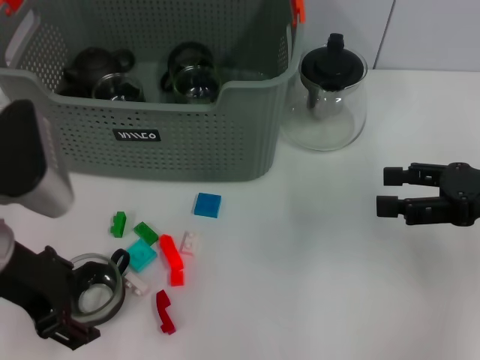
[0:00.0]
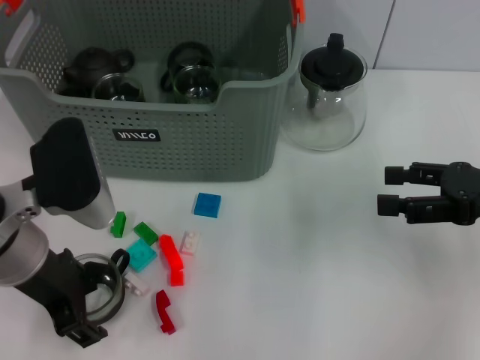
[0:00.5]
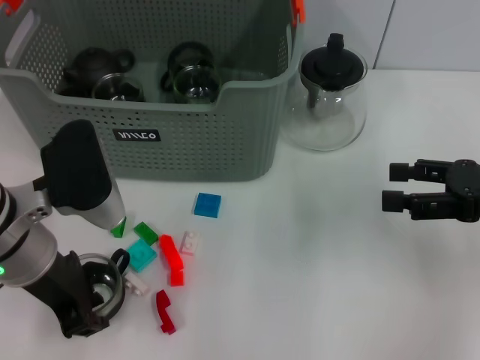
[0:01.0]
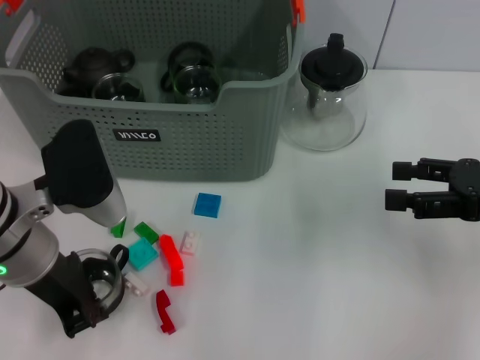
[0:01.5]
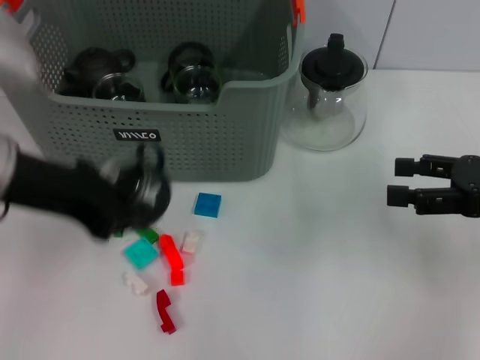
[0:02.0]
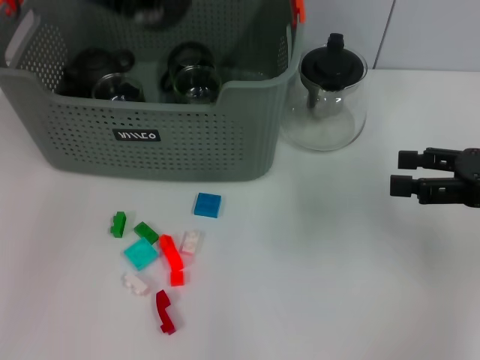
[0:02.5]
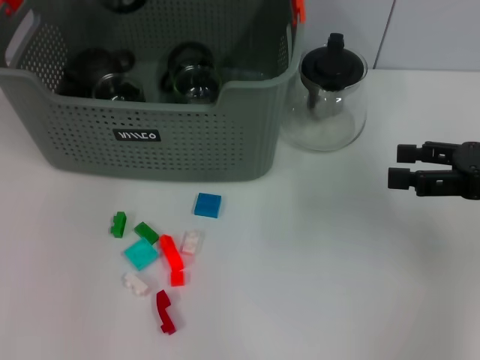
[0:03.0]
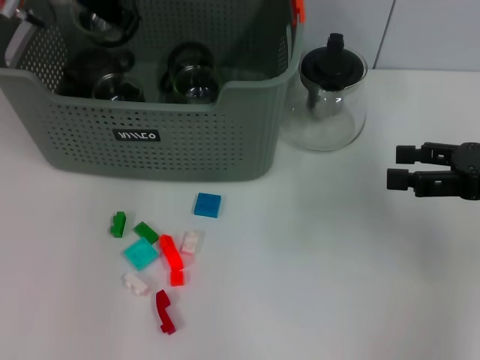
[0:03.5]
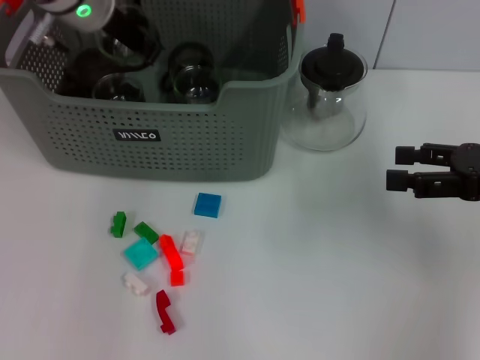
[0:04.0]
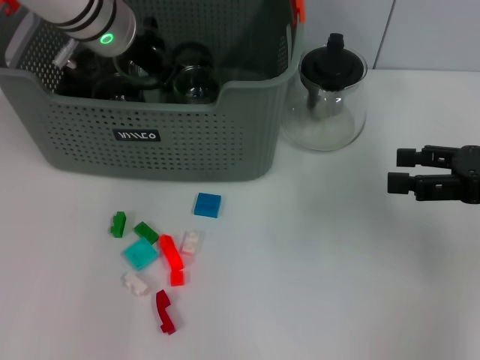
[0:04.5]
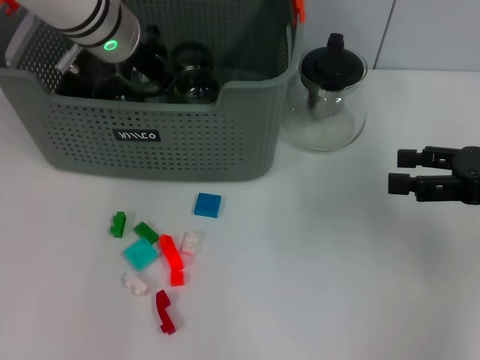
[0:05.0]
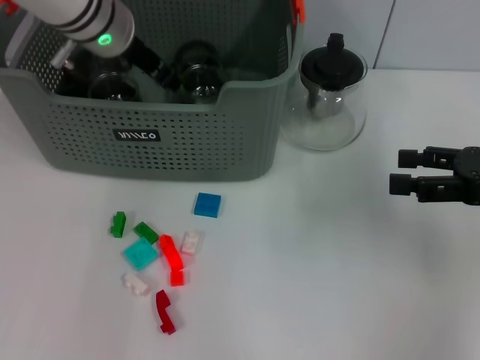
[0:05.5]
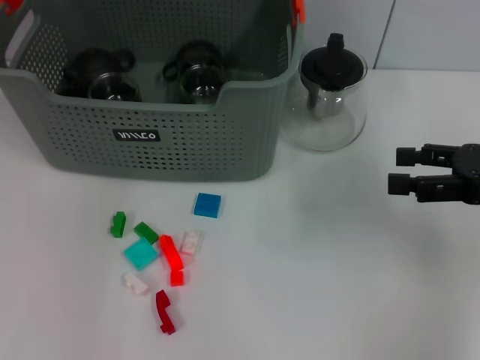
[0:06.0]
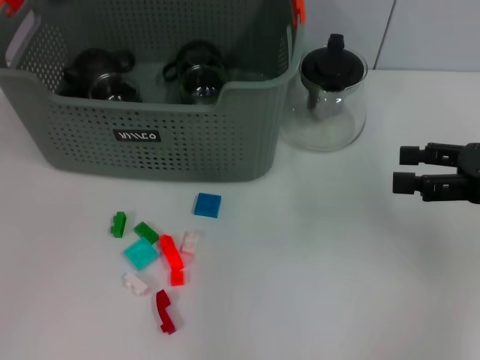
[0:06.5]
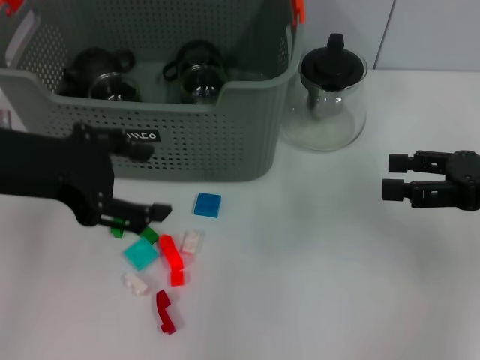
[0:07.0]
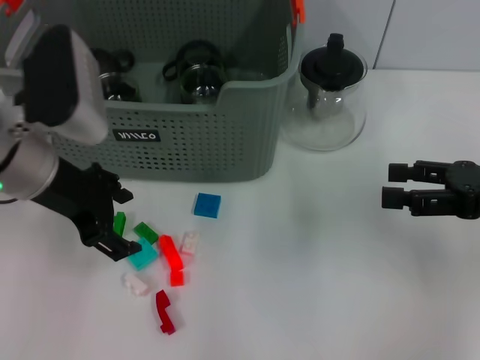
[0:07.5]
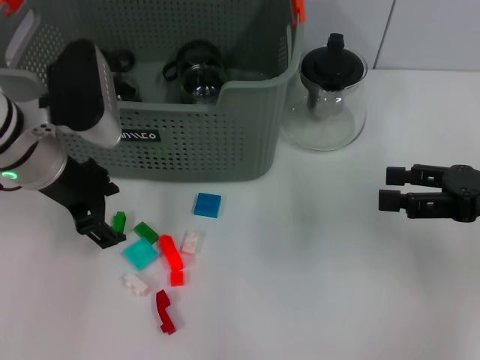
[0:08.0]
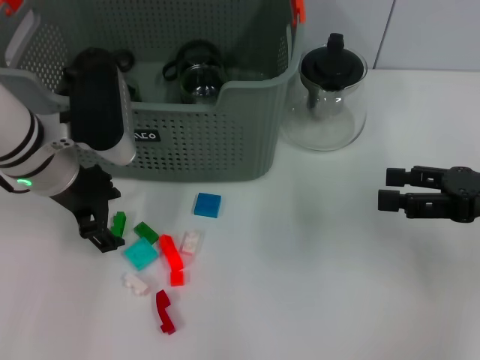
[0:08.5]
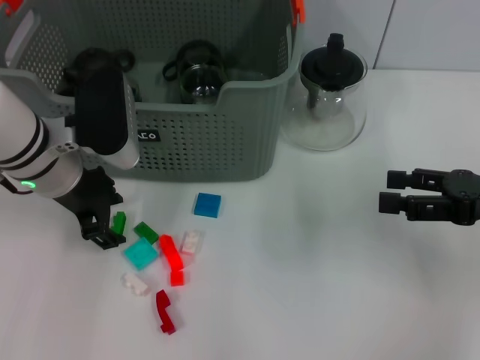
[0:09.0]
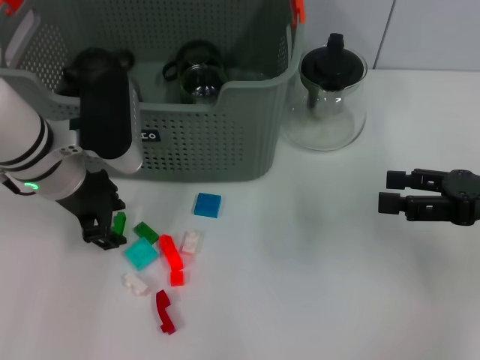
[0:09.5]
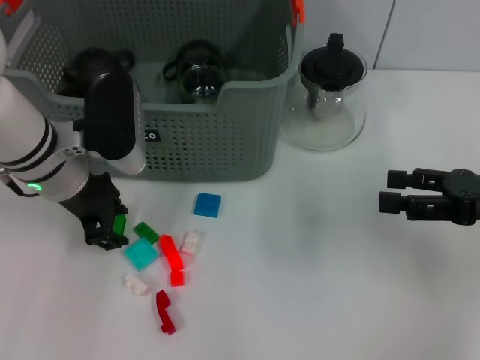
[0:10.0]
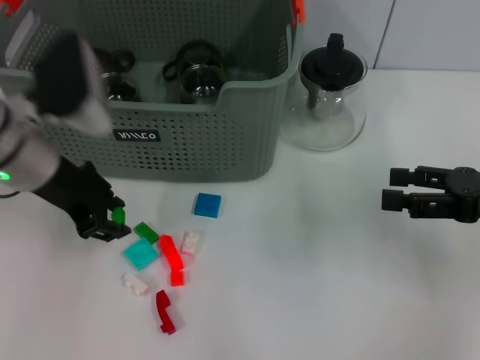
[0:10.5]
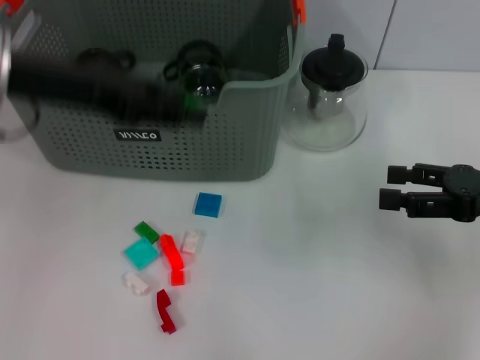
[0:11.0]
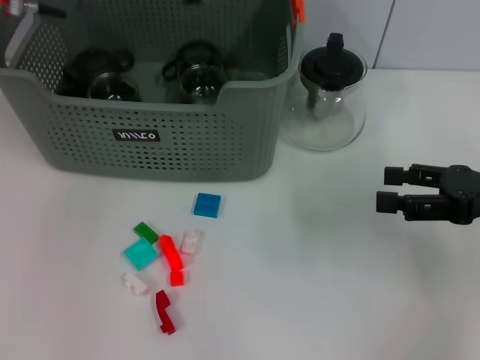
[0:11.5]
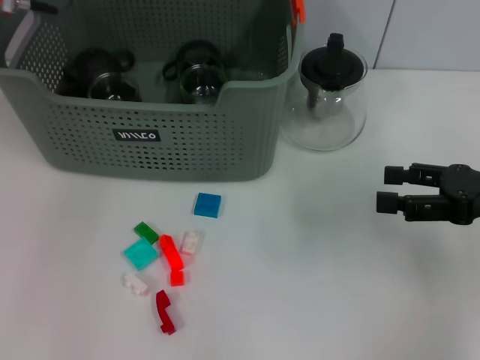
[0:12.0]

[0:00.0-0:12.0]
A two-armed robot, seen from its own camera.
Task of the whole recording: pick up the teacup on the table and place it into the storage bin, pick up the block on the table and place it into the storage bin.
Step, 1.5 to 6.0 s: Place the cup in the storage box with left gripper.
Step, 6.5 to 10.0 s: Grasp the green block with left gripper.
0.0 to 2.0 s: The left gripper is displaced upward by some 5 cm, and closes up.
2.0 to 4.0 s: The left gripper heads forward, covering roughly 20 cm.
4.0 to 6.0 s: The left gripper goes approximately 5 cm upward, and opens its fingers.
6.0 to 8.0 s: The left gripper travels downward and backward by some 15 cm.
8.0 to 10.0 s: There are only small adjustments of the grippers.
10.0 to 12.0 s: The left gripper heads upward and forward, covering roughly 15 cm.

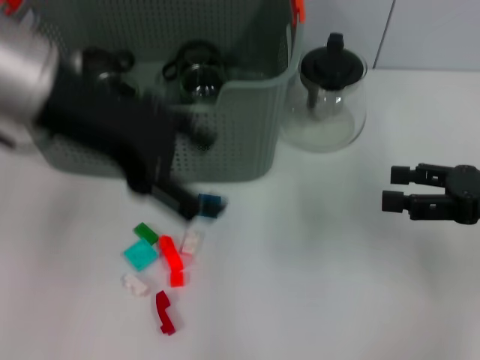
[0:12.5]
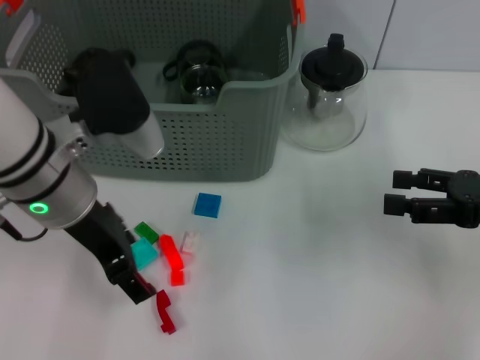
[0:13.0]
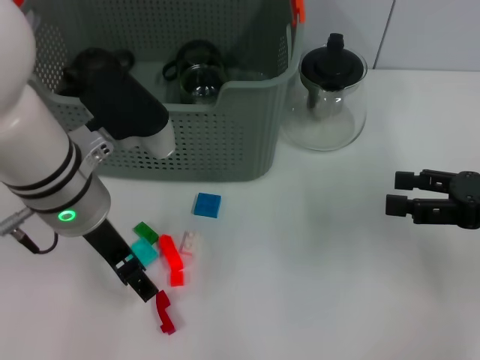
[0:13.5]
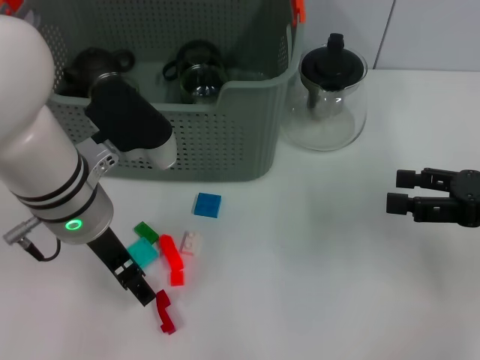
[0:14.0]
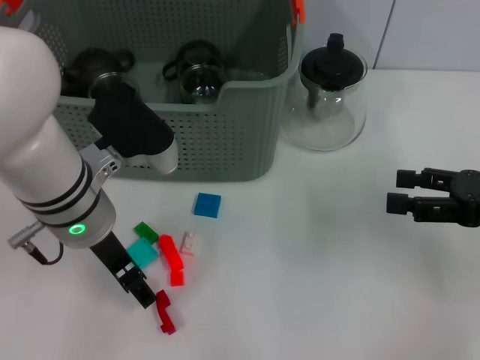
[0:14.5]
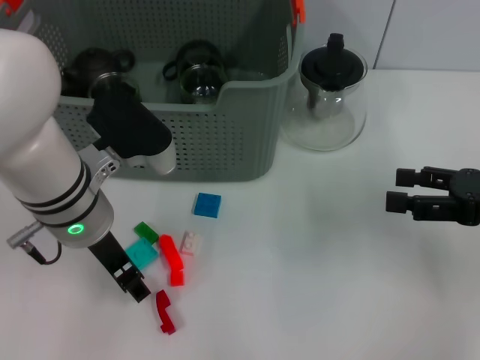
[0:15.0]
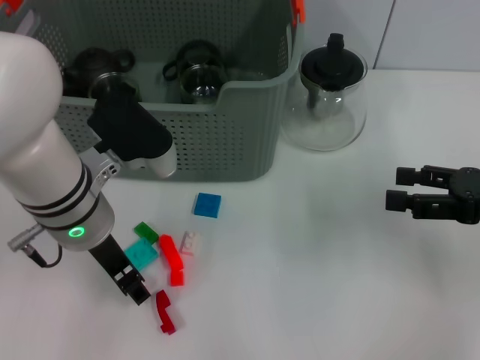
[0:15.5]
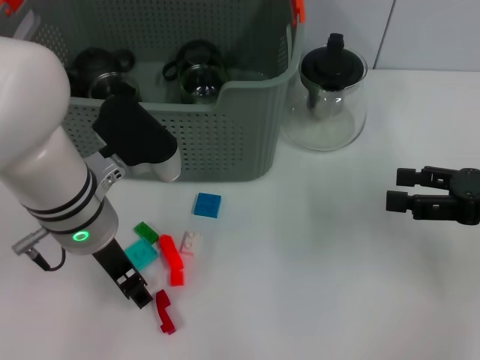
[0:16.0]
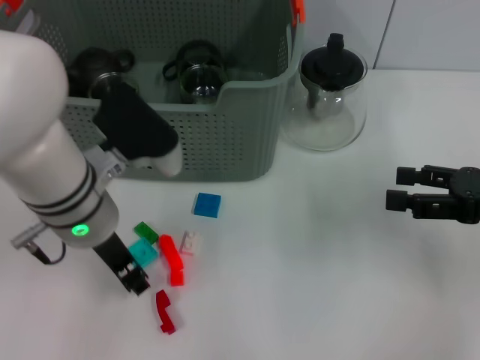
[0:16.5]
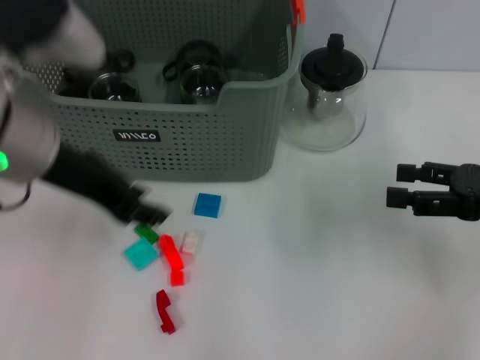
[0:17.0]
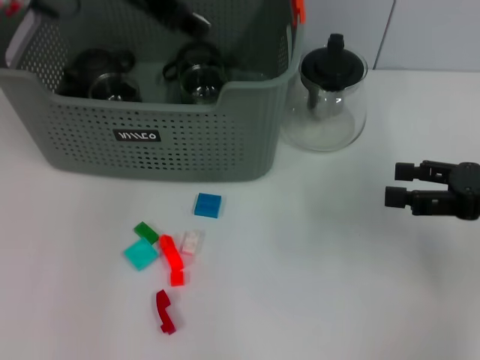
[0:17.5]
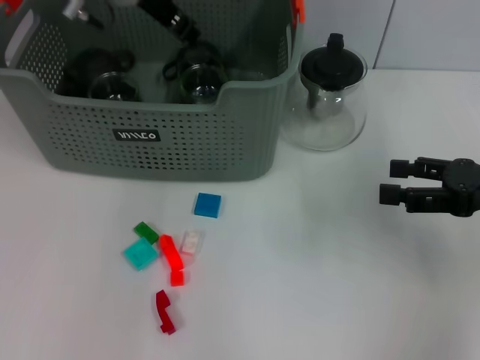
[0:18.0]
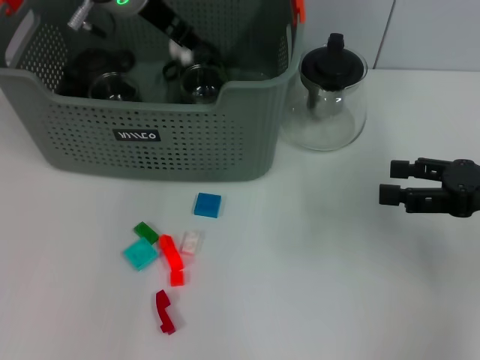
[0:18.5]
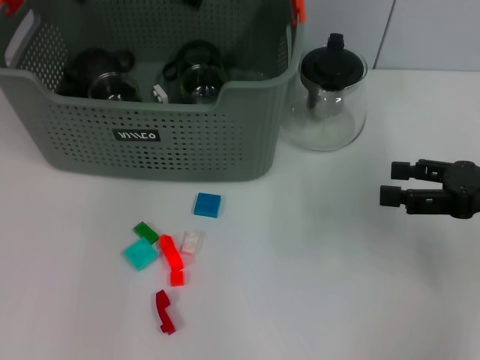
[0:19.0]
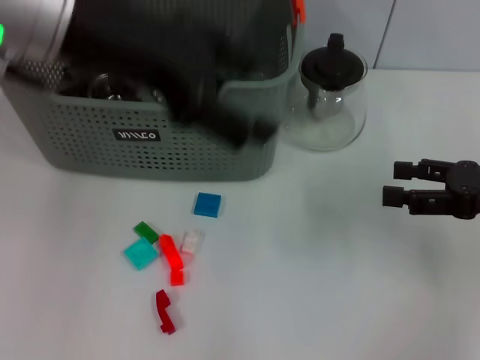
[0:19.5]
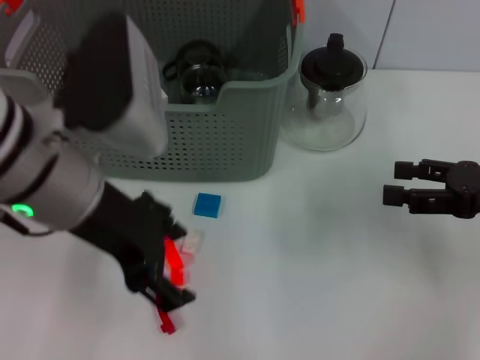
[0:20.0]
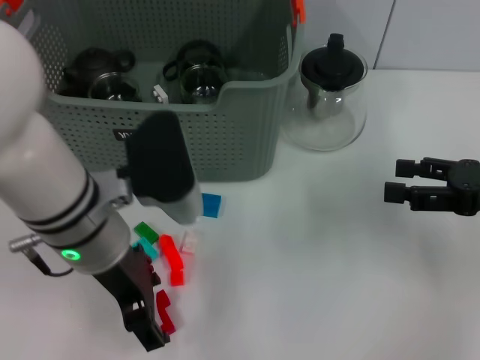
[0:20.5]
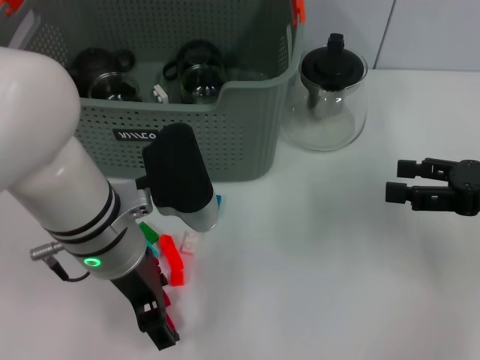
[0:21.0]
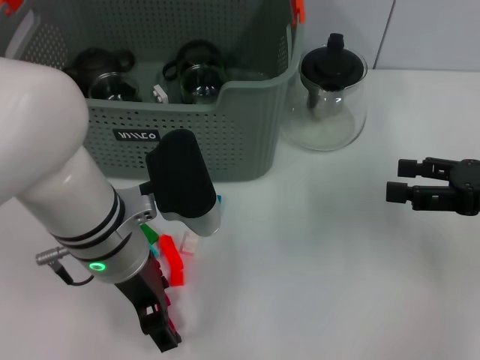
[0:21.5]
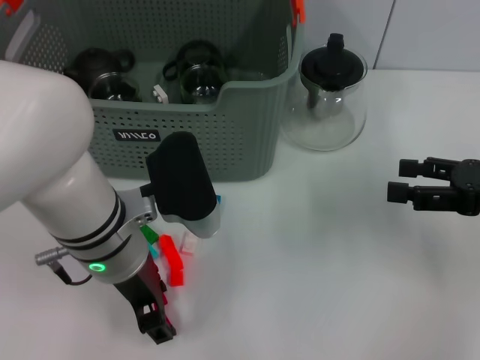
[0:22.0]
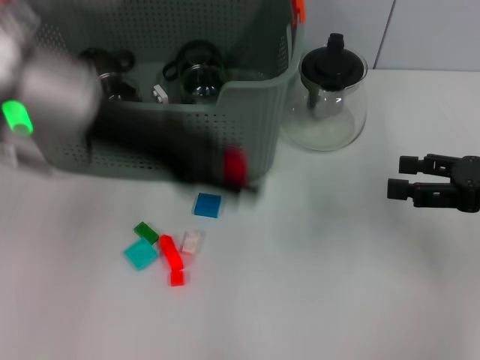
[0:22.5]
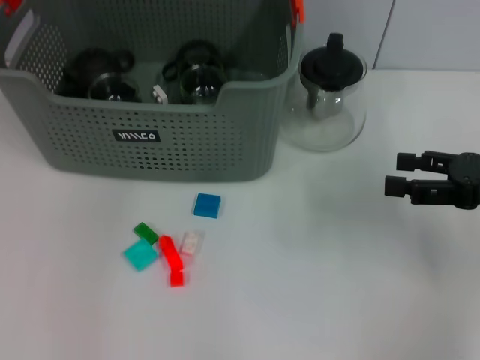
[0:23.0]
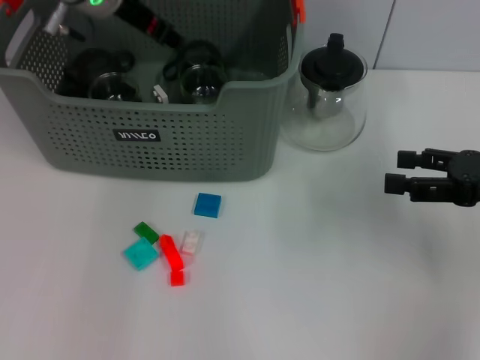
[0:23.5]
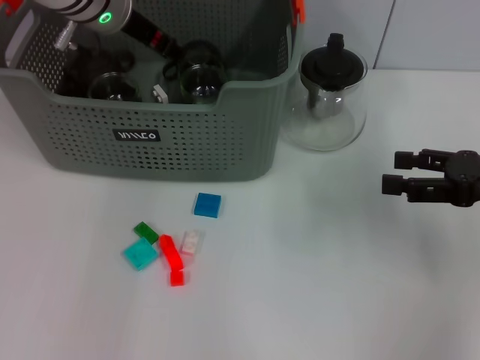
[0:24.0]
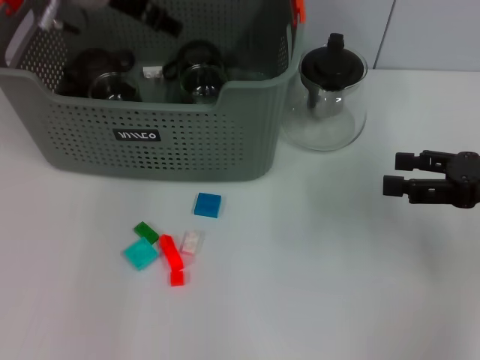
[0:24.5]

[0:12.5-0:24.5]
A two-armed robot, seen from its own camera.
Task of the whole recording: pick up the teacup on the table and place it into the storage bin, pick up the block on the table and place it into the storage bin.
Step, 13.0 to 16.5 s: Grasp the white block with left gripper.
Step, 17.0 to 19.0 s: Place the white block in the storage box with left gripper.
Step, 19.5 to 22.0 s: Grasp the red block with left gripper.
12.5 to 14.5 s: The left gripper heads downward, covering approximately 15 cm.
14.5 to 16.5 s: The left gripper closes.
16.5 to 18.5 s: The left gripper shifts roughly 20 cm forward and upward.
18.5 to 20.5 s: The left gripper goes approximately 20 cm backward and downward, and opens its fingers.
20.5 to 22.5 s: The left gripper goes some 10 cm upward.
22.5 to 24.5 s: The left gripper travels forward by approximately 15 cm.

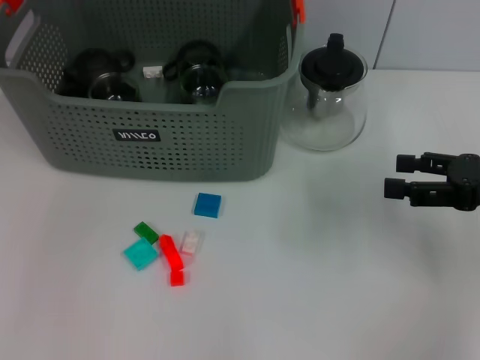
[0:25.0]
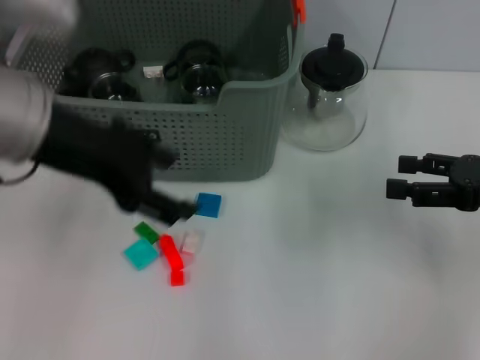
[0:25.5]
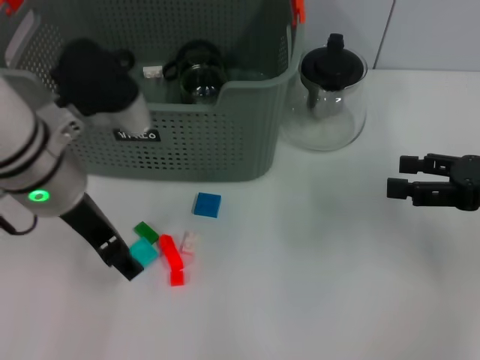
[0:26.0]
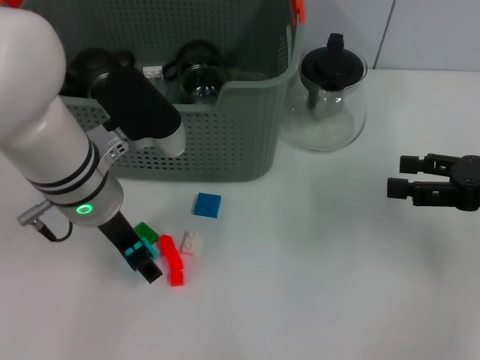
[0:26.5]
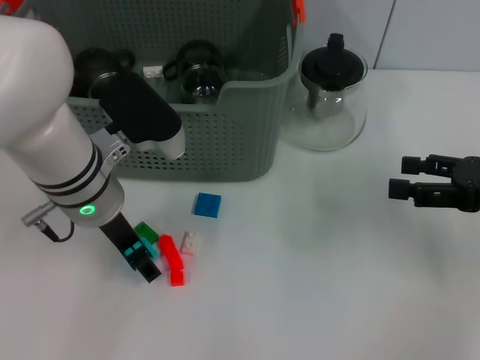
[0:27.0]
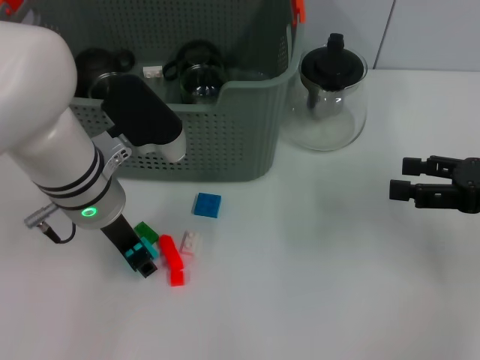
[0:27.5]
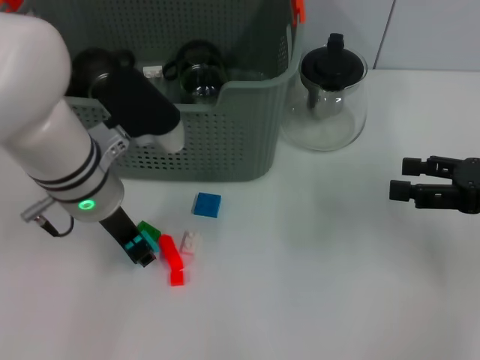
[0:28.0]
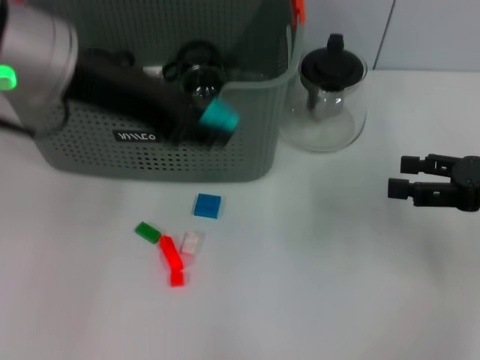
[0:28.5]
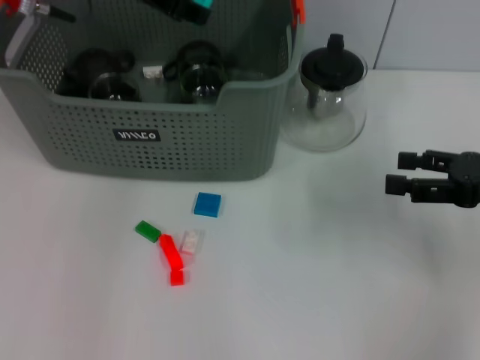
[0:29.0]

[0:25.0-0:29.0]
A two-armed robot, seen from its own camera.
Task of the whole recording: pick up the teacup on the table and place it into the storage bin, pick up the block on the table and place it into the storage bin.
Step, 25.0 to 28.0 s: Grasp the light blue block with left gripper.
25.0 to 27.0 s: The left gripper travels downward by approximately 20 cm.
27.0 to 29.0 s: The left gripper is displaced upward and forward by some 20 cm, and closes up.
